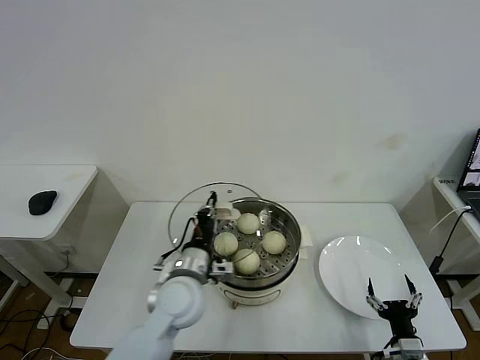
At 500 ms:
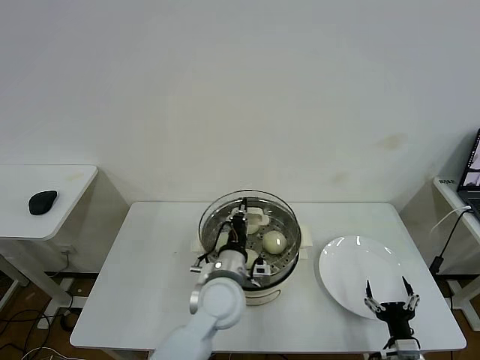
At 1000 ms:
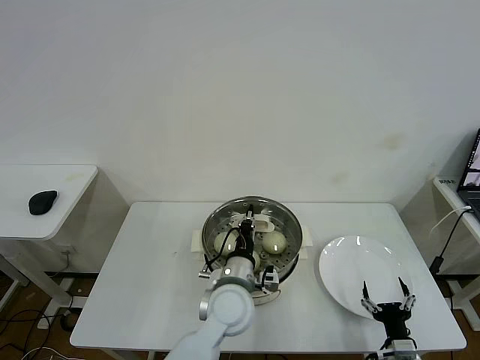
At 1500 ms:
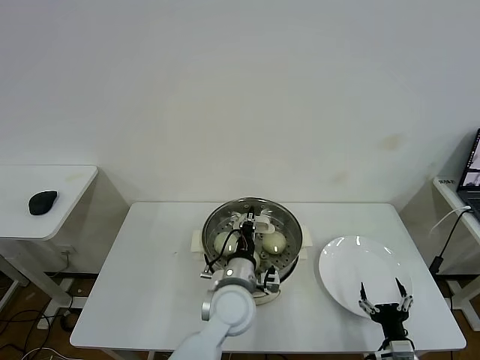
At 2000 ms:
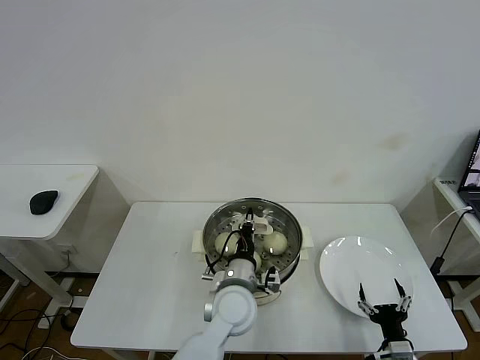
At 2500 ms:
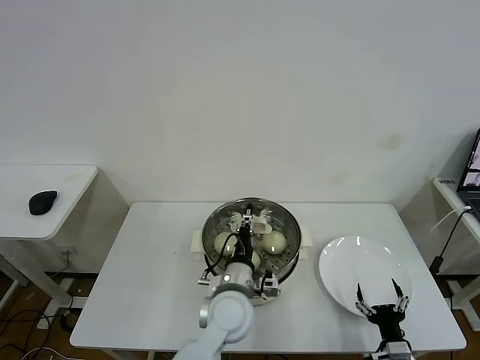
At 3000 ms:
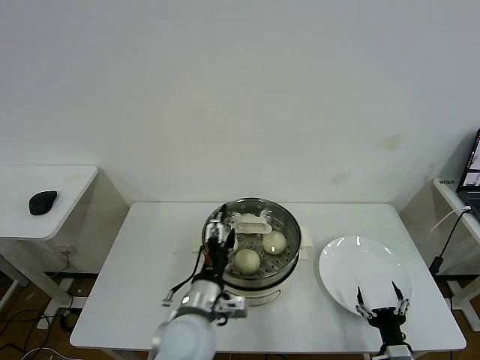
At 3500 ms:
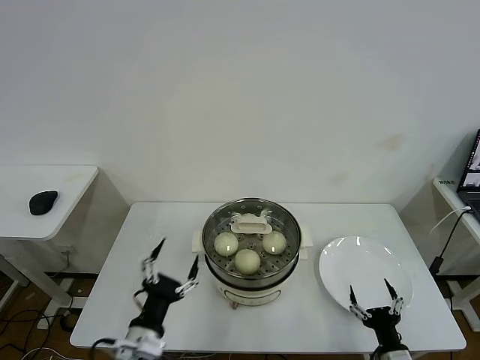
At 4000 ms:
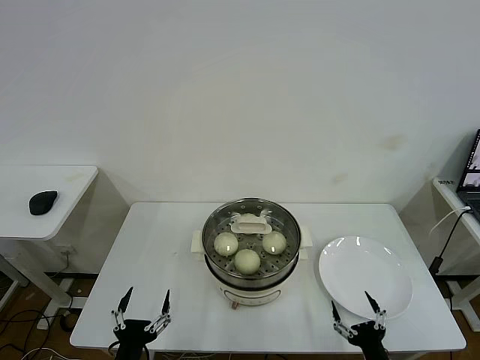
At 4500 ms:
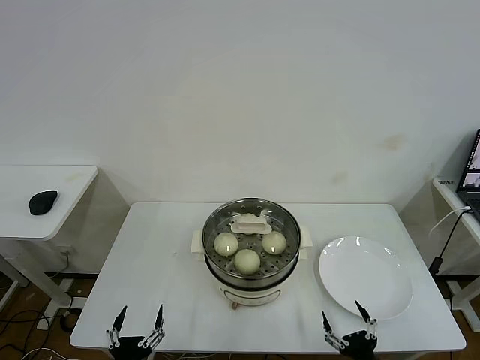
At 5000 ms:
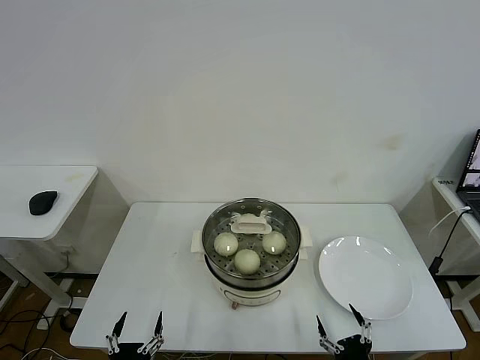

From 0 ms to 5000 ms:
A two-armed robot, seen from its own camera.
Task of the whole recording: take steamed baozi put them in steamer then cover it.
Step, from 0 ms to 2500 ms: Place the pot lid on the steamer with left gripper.
From 0 ms to 2500 ms: The left gripper travels to the right by approximately 10 cm, and opens its fingers.
From 2500 ms to 5000 ms: The right gripper moves backward and to the left, approximately 10 cm. Meanwhile the left gripper goes some 35 cm to the left, backward and downward, and opens its fingers.
